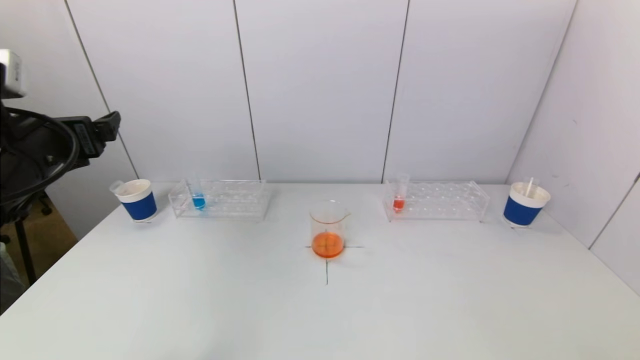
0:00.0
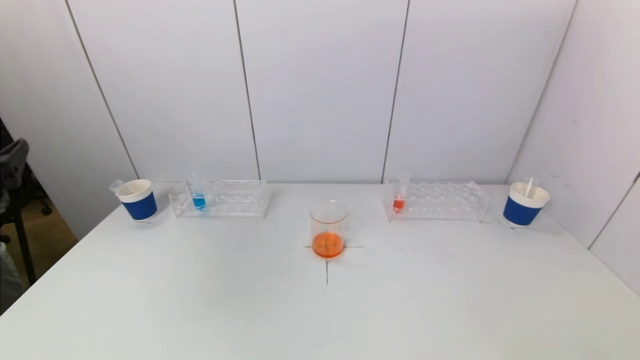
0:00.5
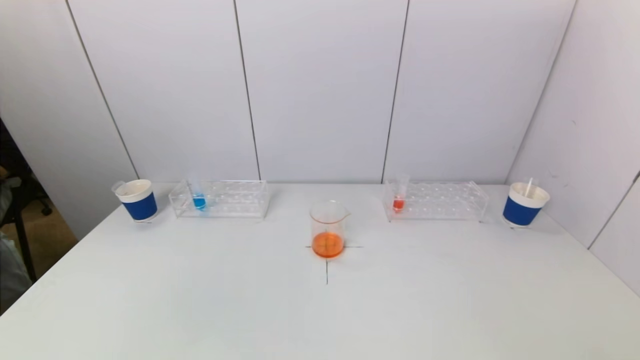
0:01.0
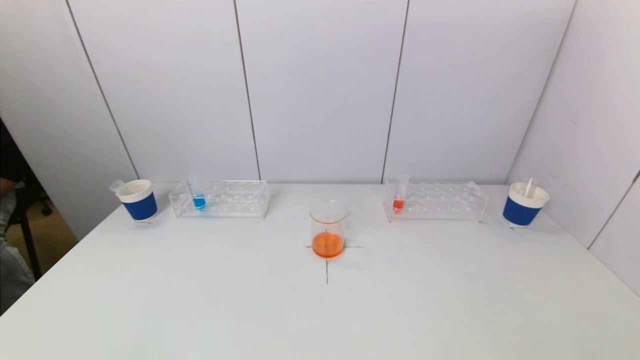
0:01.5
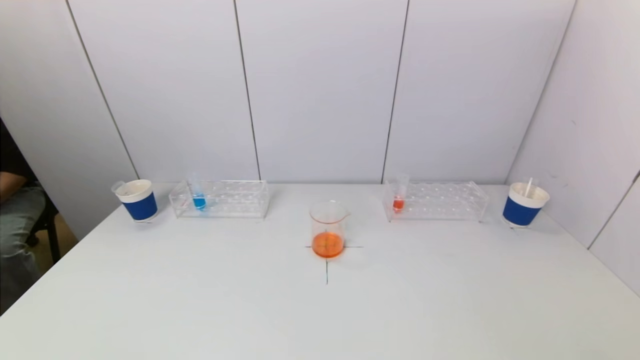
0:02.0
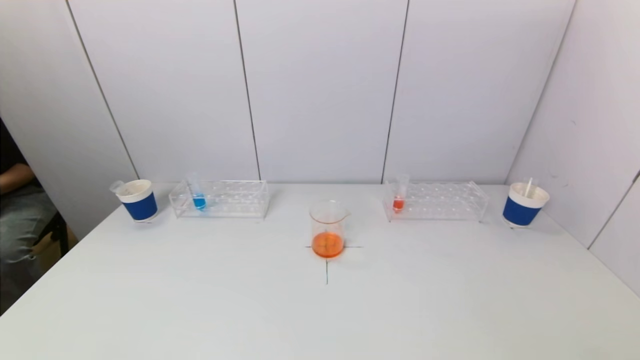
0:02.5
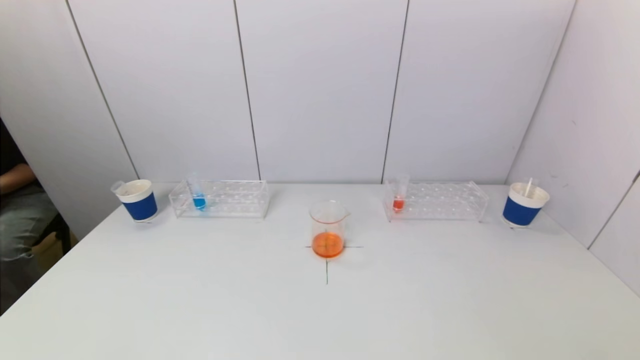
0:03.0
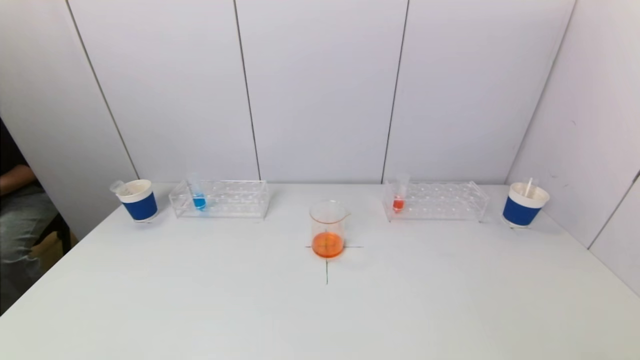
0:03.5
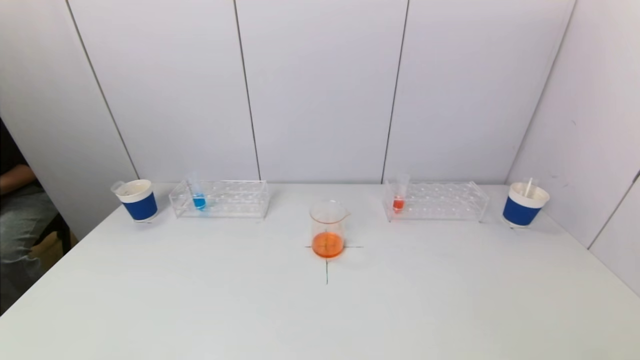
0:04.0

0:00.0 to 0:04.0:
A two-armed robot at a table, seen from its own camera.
Task of the whole recording: pick up a test tube with pigment on left test tube rack and a test tube with pigment on right test tube rack by grippers and pour them into the beaker.
0:00.0 to 0:02.0: The left gripper moves backward and downward, about 30 cm.
